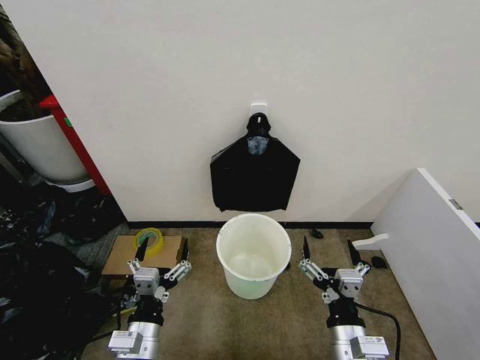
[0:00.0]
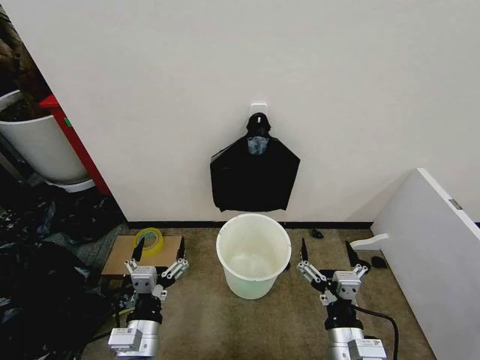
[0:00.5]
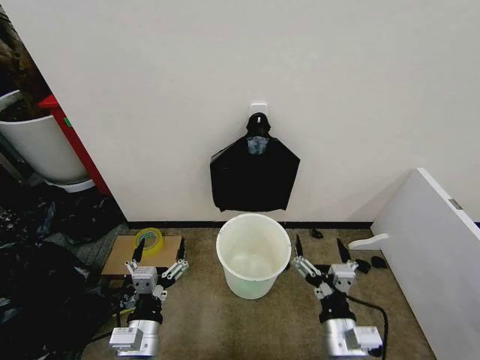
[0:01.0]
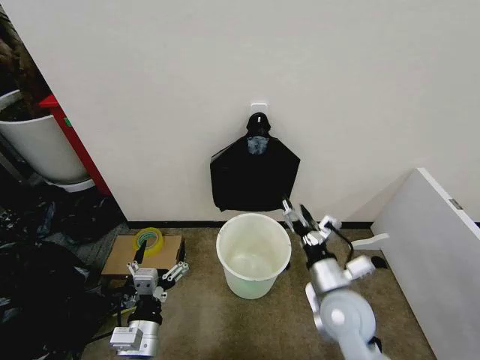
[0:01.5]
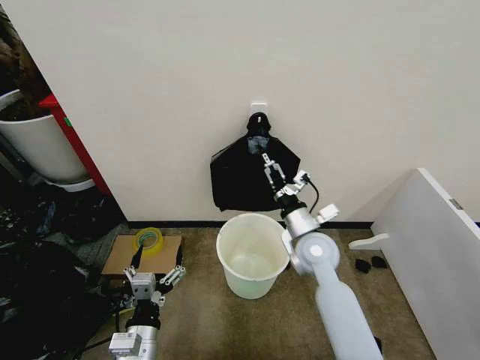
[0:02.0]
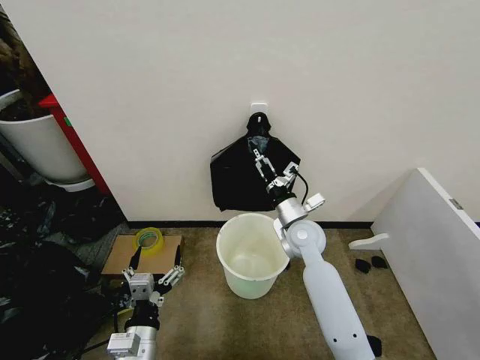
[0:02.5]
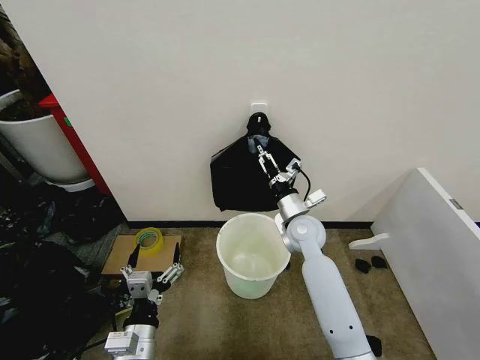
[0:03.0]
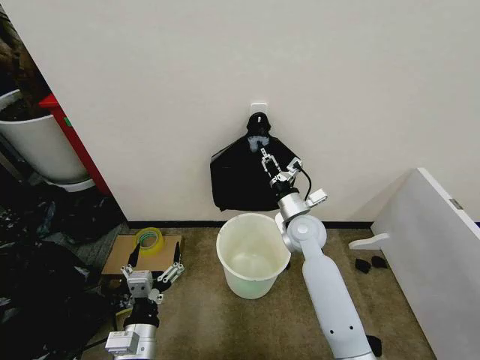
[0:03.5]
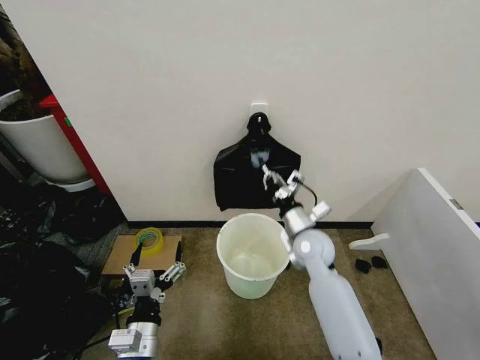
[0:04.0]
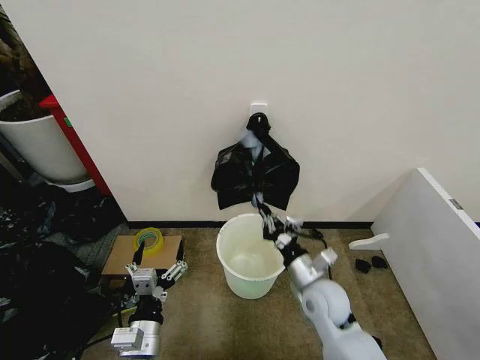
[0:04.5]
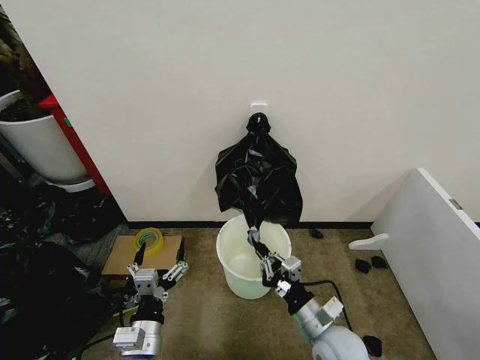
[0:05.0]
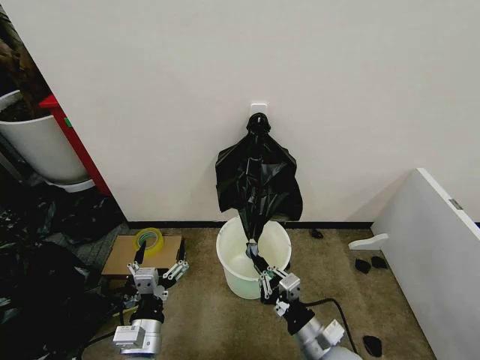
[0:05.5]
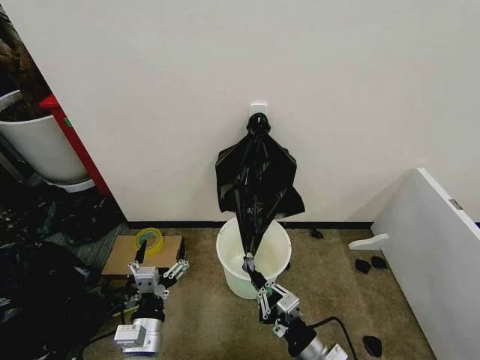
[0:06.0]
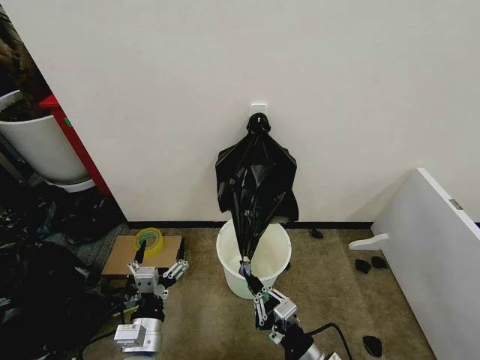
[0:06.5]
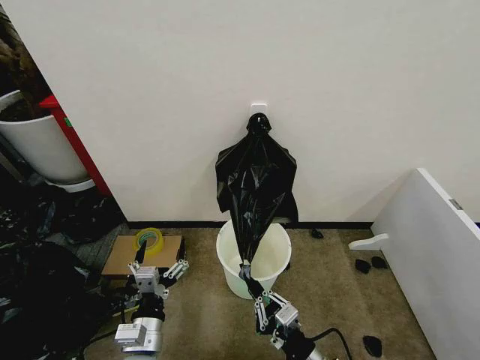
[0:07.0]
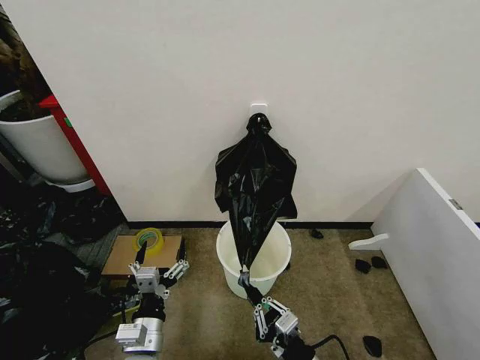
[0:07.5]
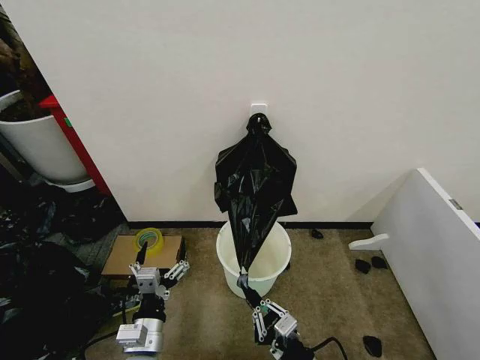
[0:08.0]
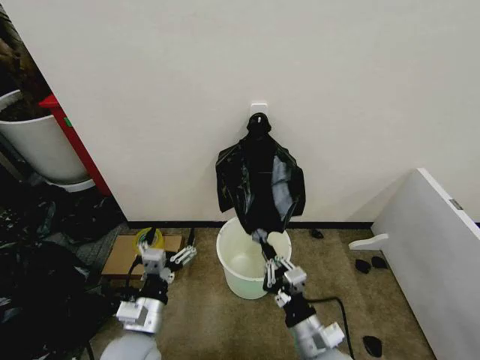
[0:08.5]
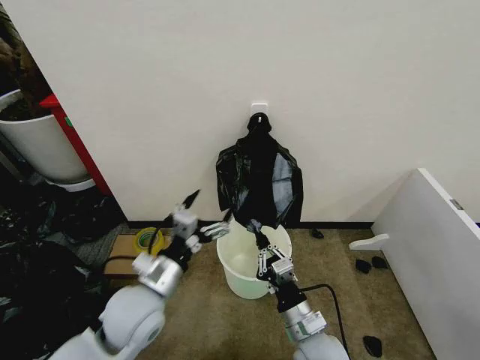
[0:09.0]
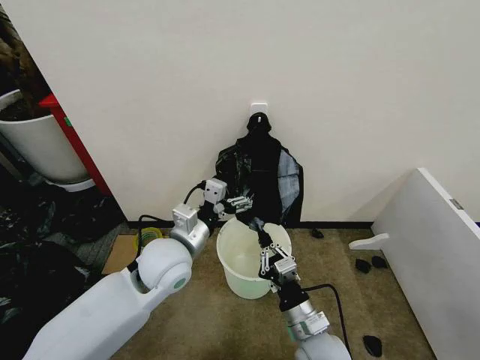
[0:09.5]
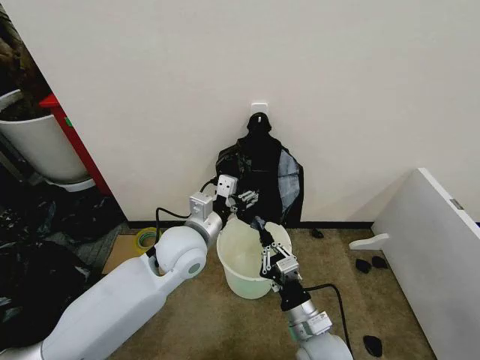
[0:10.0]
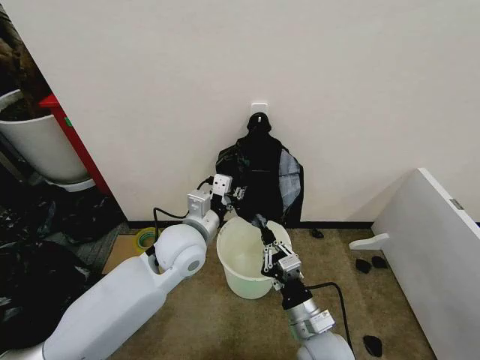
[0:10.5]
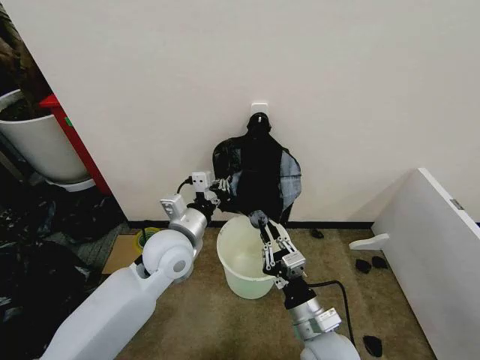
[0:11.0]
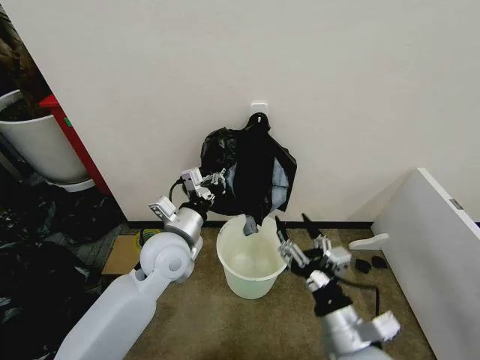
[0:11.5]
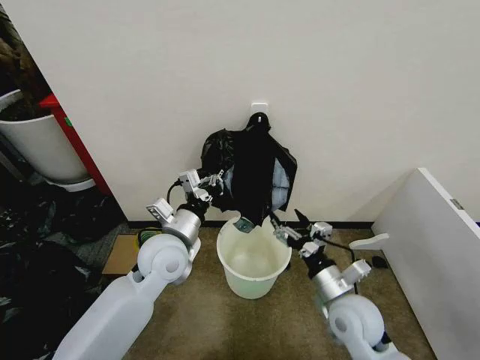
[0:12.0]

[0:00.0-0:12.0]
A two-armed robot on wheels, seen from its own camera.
Task of the whole recording: Place the garbage bag over the trash bin.
0:02.0 to 0:04.0: The right gripper closes up.
0:04.0 to 0:06.0: The right gripper shifts about 30 cm backward.
0:06.0 to 0:08.0: The grippers move only a little.
0:08.0 to 0:10.0: The right gripper heads forward, covering approximately 10 cm. The left gripper travels forward and upward by some 25 cm.
0:10.0 to 0:12.0: The left gripper closes its fingers. Meanwhile the right gripper travels to the right and forward by roughly 10 cm, and opens its fingers.

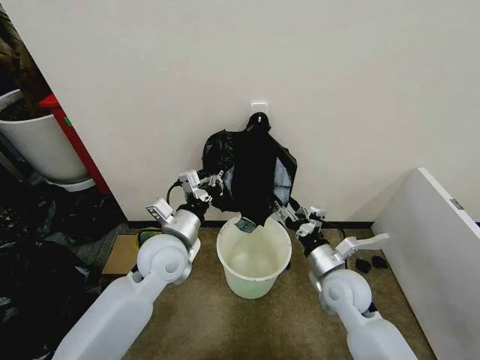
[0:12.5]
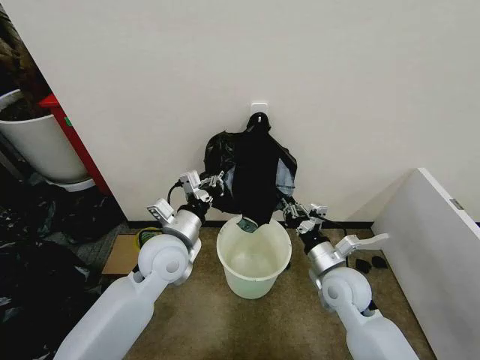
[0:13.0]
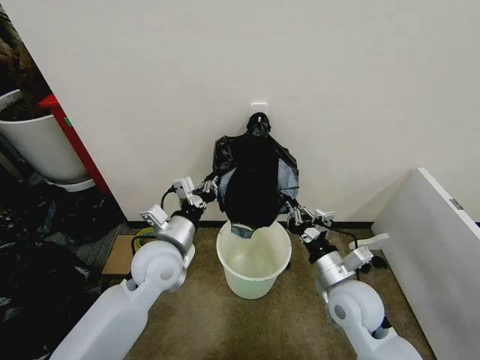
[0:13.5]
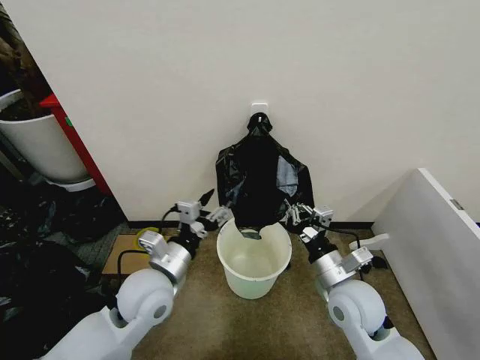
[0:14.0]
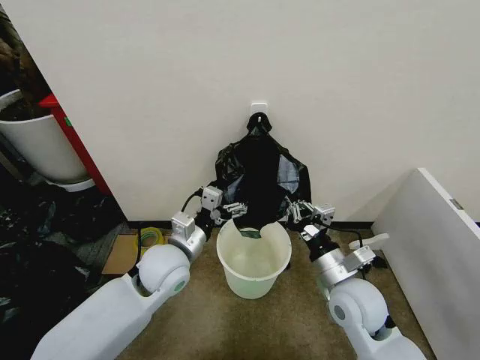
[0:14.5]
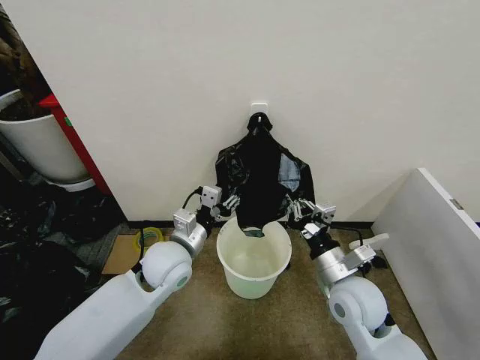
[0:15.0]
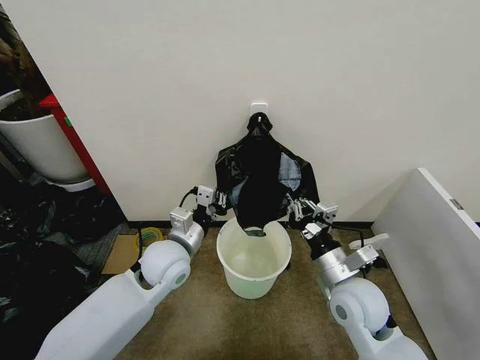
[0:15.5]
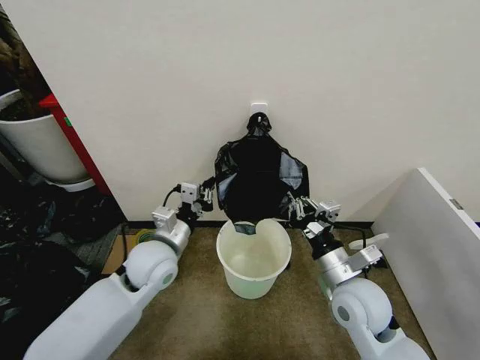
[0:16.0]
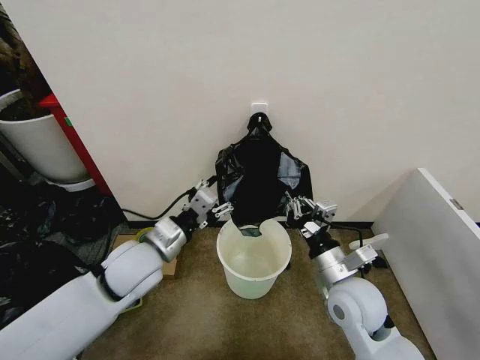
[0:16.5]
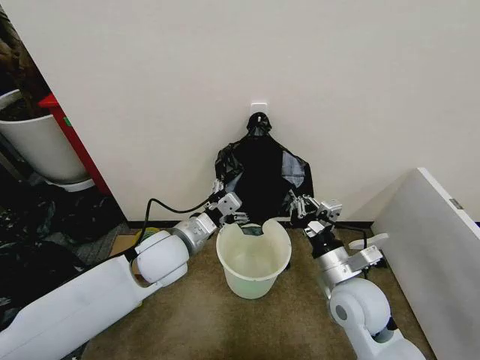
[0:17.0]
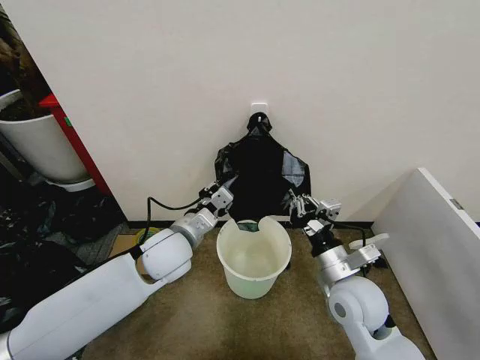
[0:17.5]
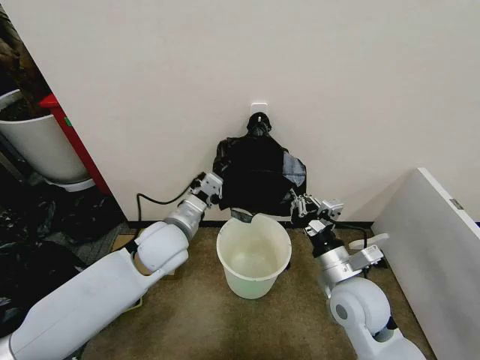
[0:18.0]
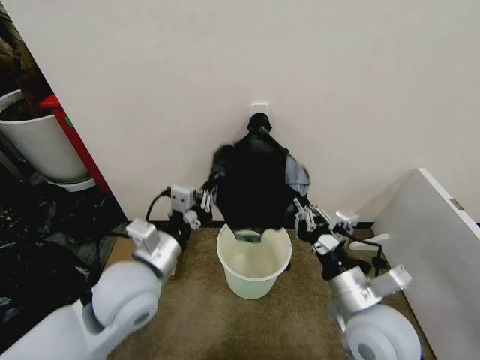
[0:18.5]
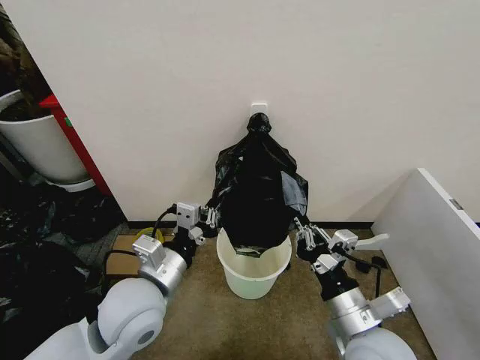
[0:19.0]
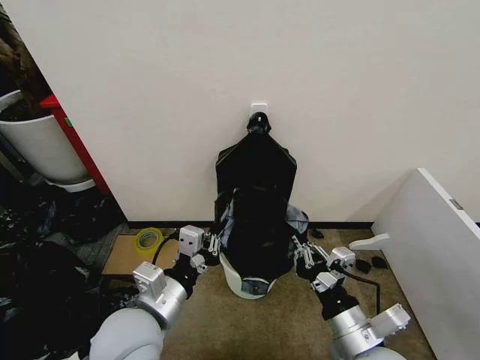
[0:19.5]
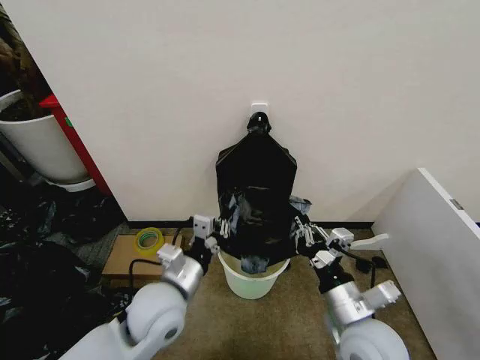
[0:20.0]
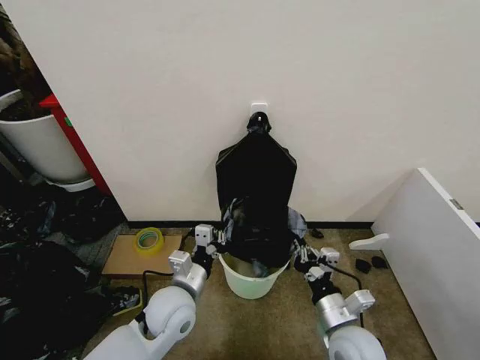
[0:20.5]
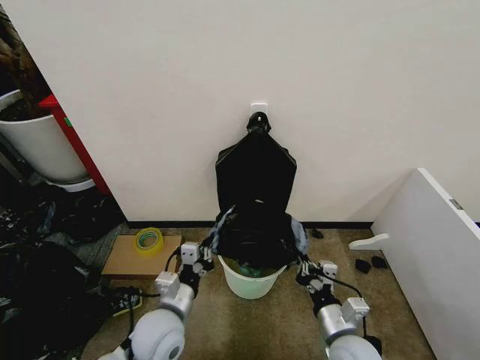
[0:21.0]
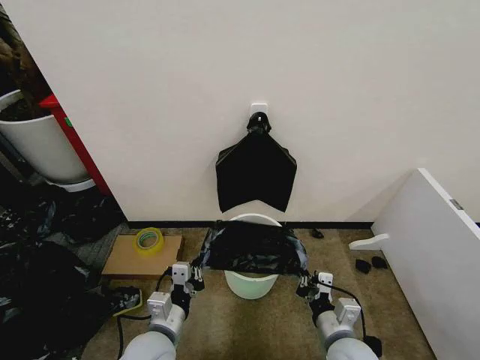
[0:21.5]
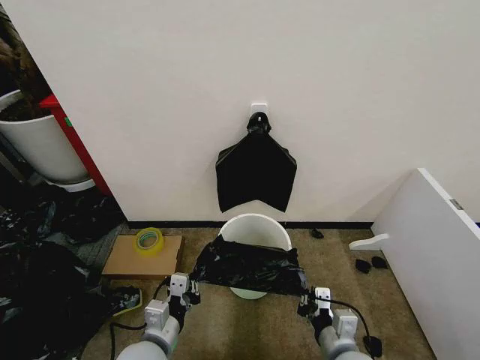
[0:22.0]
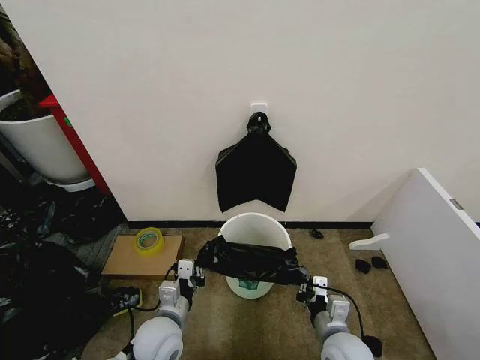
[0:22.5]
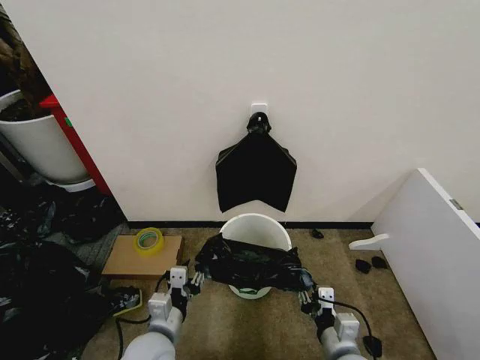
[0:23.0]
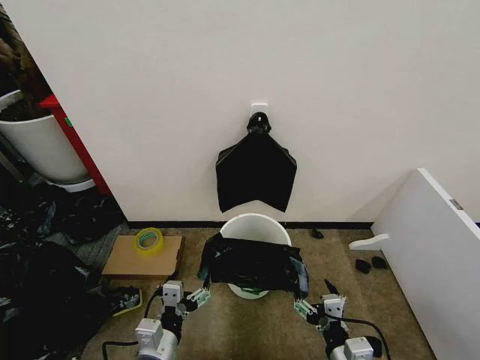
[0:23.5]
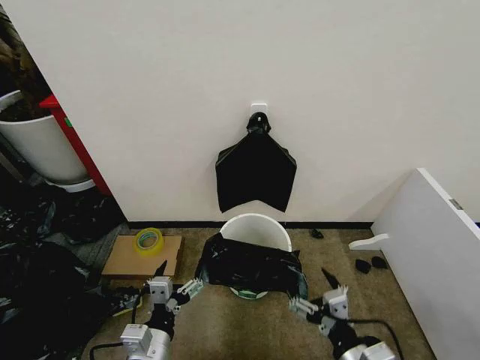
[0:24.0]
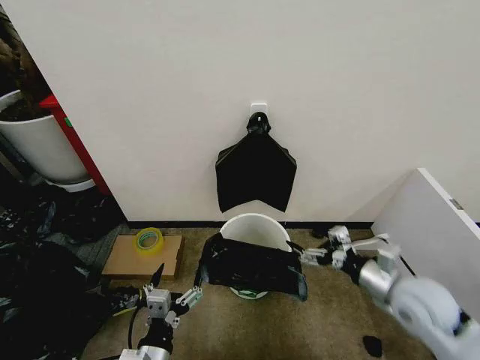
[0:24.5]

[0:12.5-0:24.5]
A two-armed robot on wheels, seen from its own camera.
Task of the whole recording: Place the garbage bag over the trash bin.
0:12.5 to 0:14.5: The left gripper opens; the right gripper moves about 5 cm, and closes.
0:14.5 to 0:16.5: The left gripper shifts by approximately 5 cm, and closes and opens again.
0:16.5 to 0:18.5: Both grippers move backward, approximately 5 cm. The left gripper closes its fingers.
0:18.5 to 0:20.5: The two grippers go approximately 10 cm downward.
0:20.5 to 0:22.5: The two grippers go approximately 5 cm downward.
0:22.5 to 0:24.5: The right gripper is displaced upward, to the right and forward by approximately 20 cm, and opens. Meanwhile the left gripper moves backward, about 10 cm, and opens up.

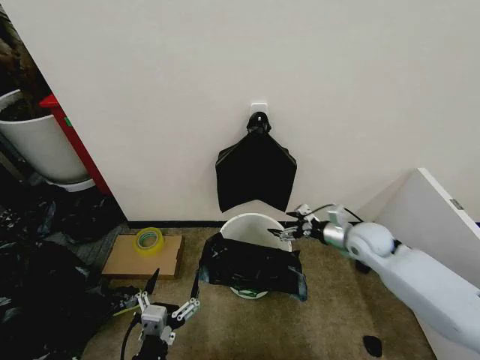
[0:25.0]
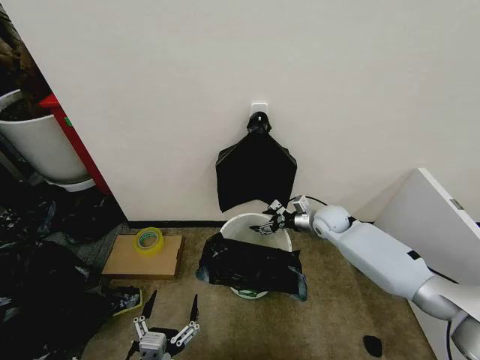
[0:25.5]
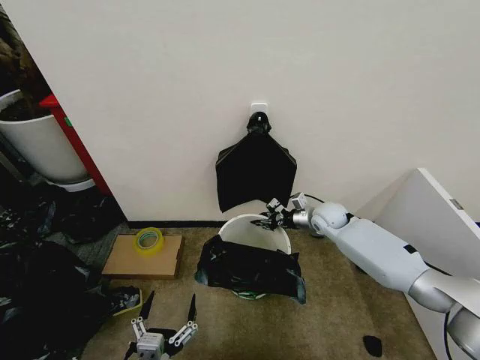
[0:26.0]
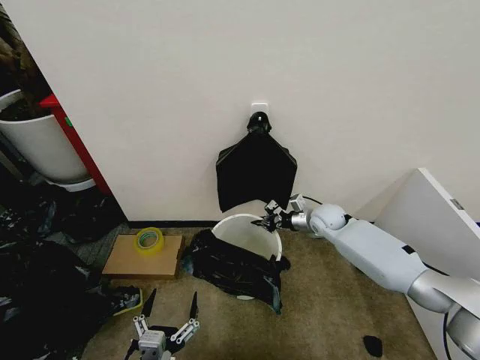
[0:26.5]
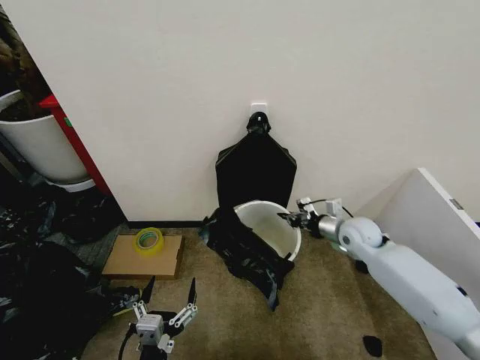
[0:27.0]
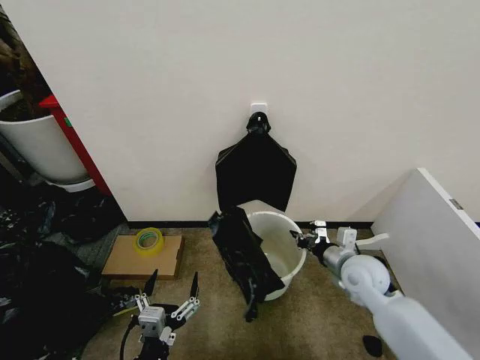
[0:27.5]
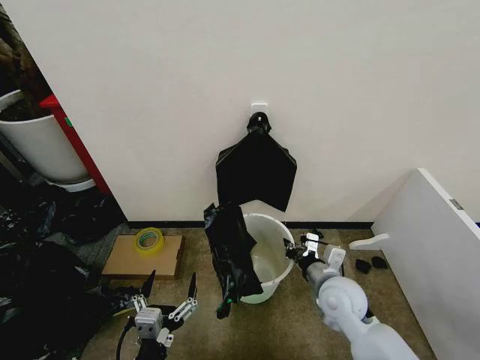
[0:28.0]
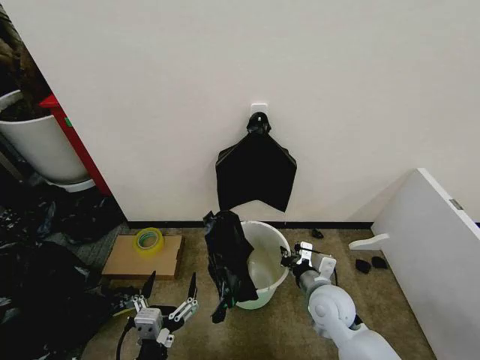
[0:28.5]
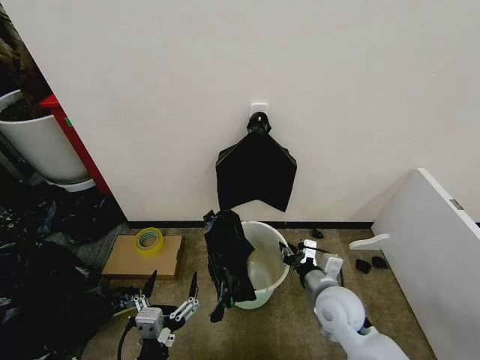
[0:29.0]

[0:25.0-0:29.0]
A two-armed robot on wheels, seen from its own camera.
Task of the whole recording: Place the garbage bag over the trash bin.
0:25.0 to 0:27.0: The right gripper travels forward and back again, some 10 cm each way, and closes.
0:27.0 to 0:29.0: The right gripper moves backward and to the left, some 20 cm.
